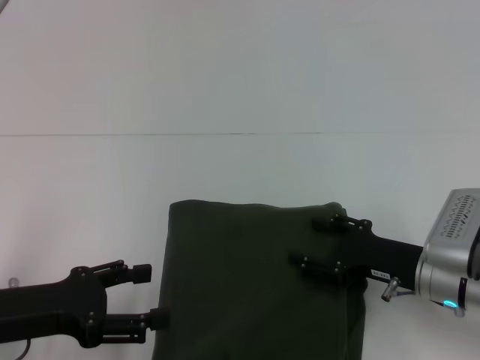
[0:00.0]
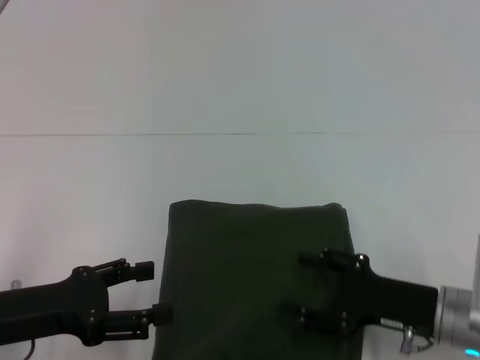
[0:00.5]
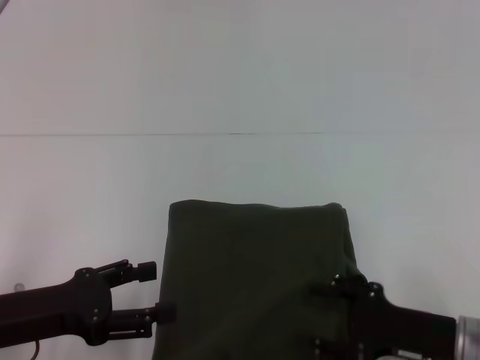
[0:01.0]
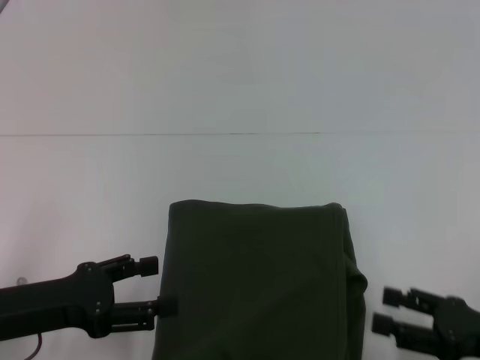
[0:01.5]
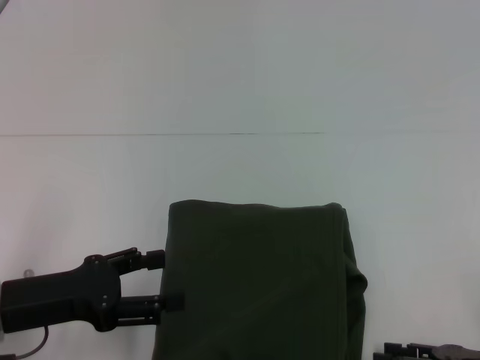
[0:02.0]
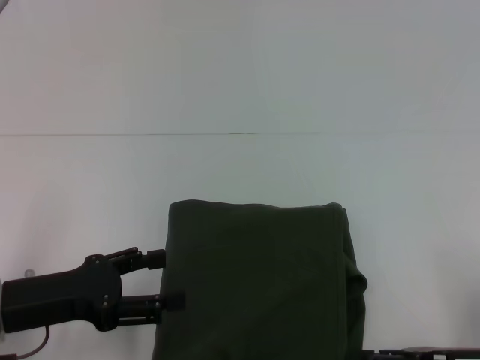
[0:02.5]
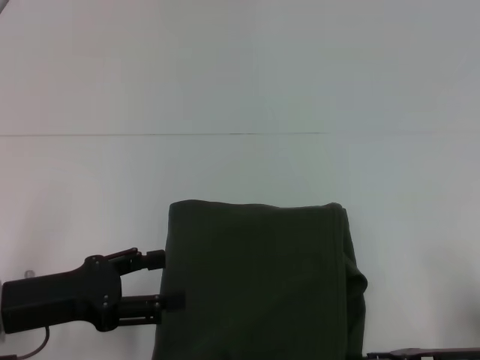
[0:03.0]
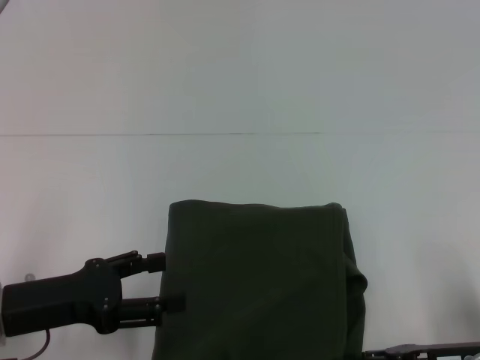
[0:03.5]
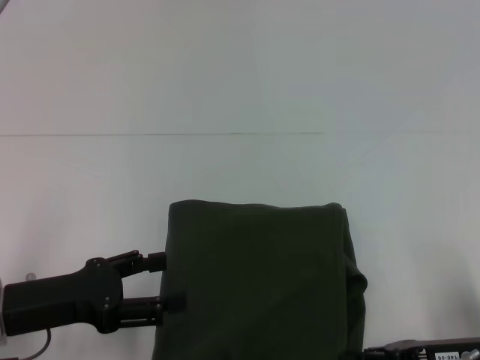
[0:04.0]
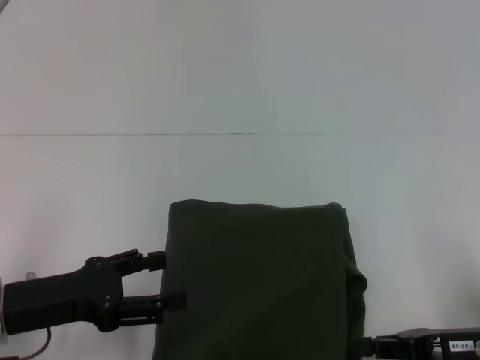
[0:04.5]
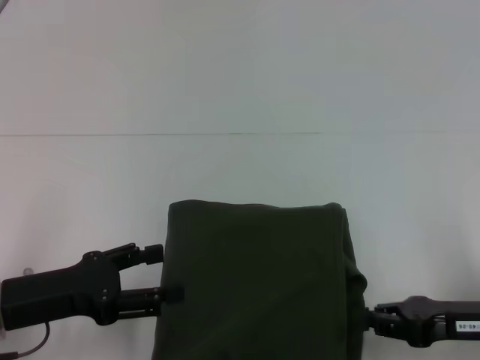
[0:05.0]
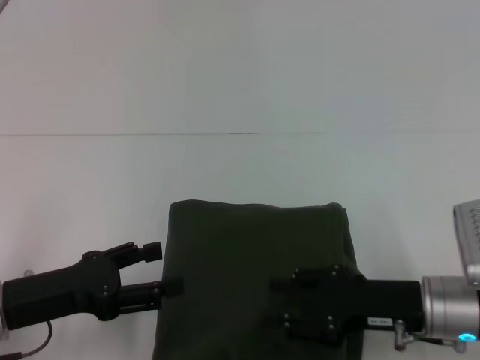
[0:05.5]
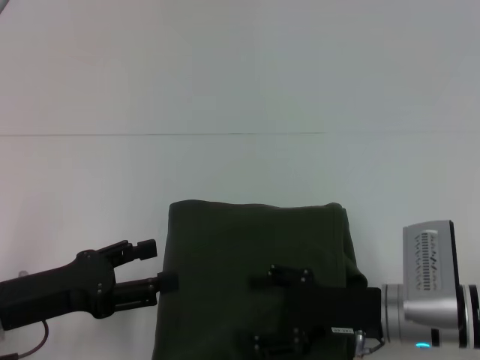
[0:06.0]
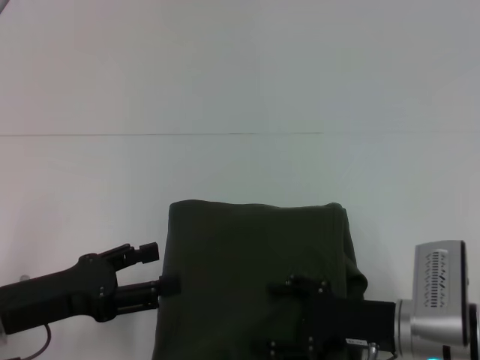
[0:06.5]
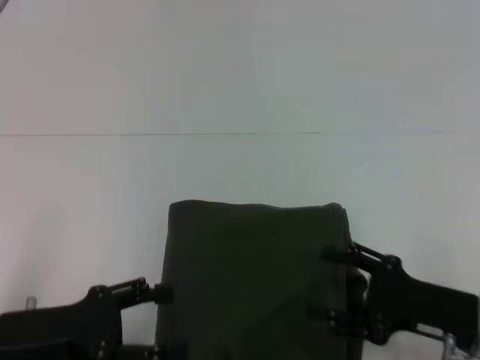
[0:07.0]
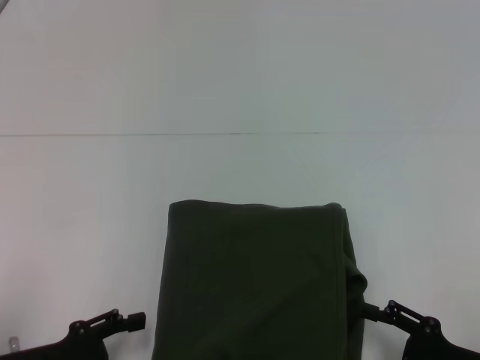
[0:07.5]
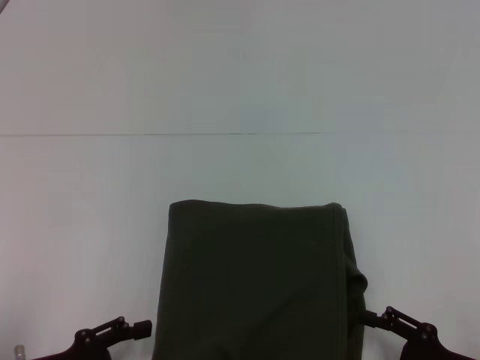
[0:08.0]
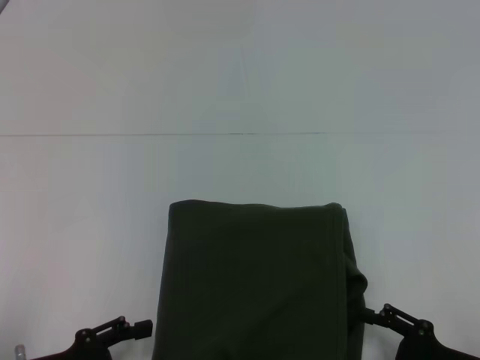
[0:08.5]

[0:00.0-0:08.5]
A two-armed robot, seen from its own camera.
0:00.0 to 0:02.0: The right gripper is displaced backward and to the right by approximately 15 cm.
0:02.0 to 0:04.0: The right gripper ends up approximately 5 cm from where it was, and closes.
0:04.0 to 0:06.5: The right gripper moves to the left, some 10 cm, and opens.
0:06.5 to 0:08.5: The left gripper goes some 5 cm backward; the right gripper travels to the right and backward by roughly 10 cm.

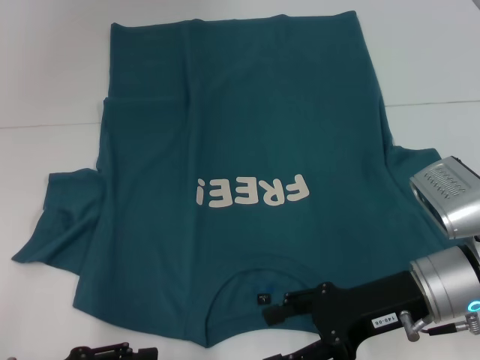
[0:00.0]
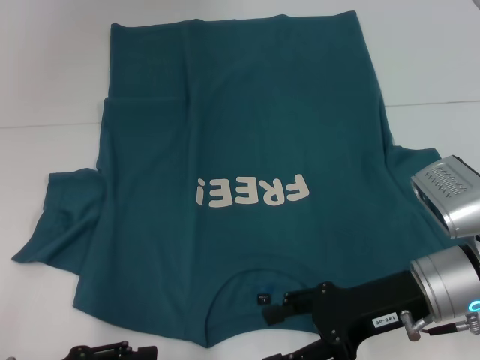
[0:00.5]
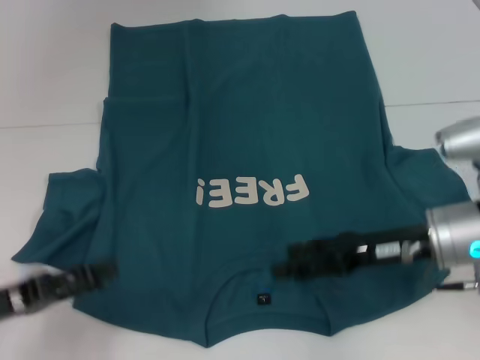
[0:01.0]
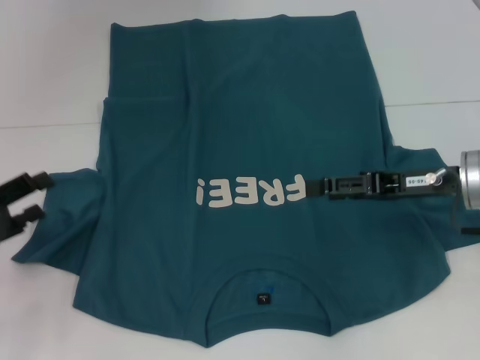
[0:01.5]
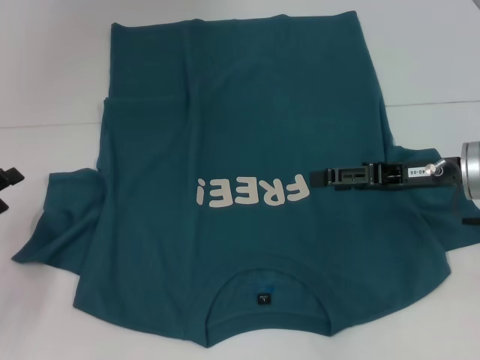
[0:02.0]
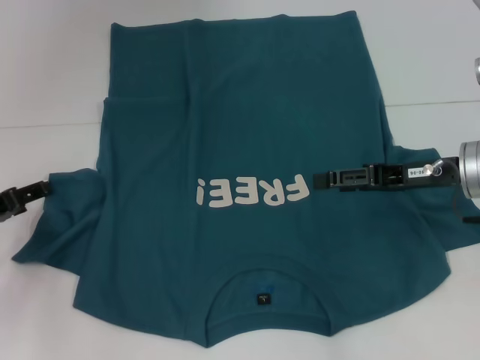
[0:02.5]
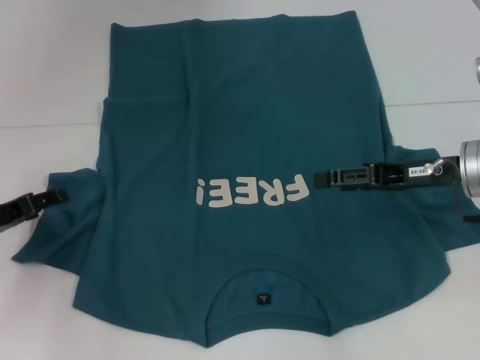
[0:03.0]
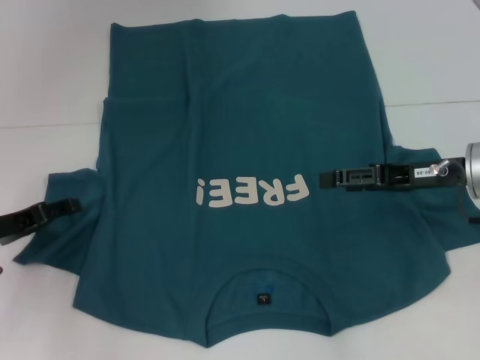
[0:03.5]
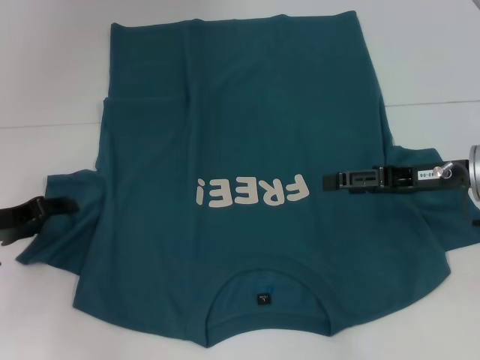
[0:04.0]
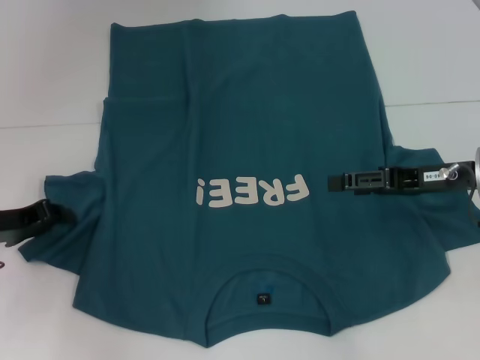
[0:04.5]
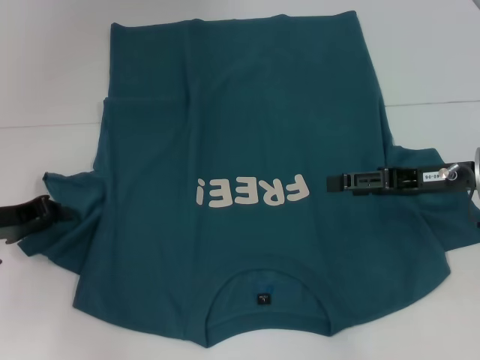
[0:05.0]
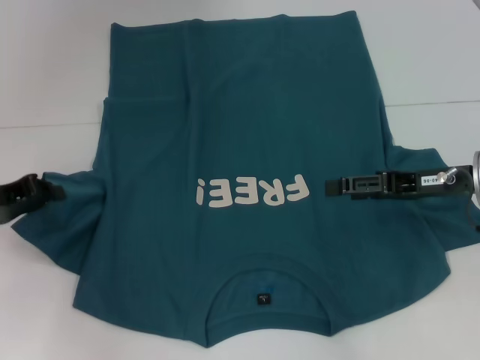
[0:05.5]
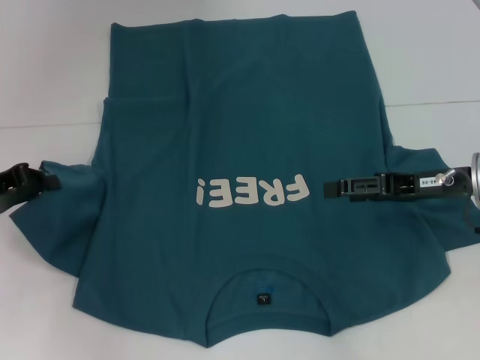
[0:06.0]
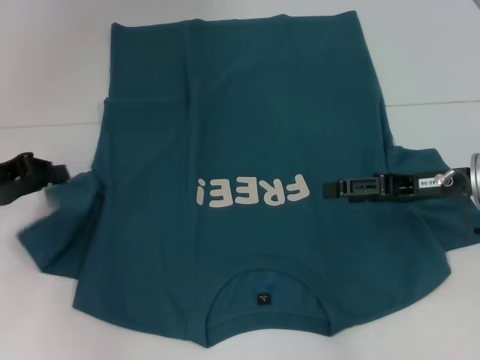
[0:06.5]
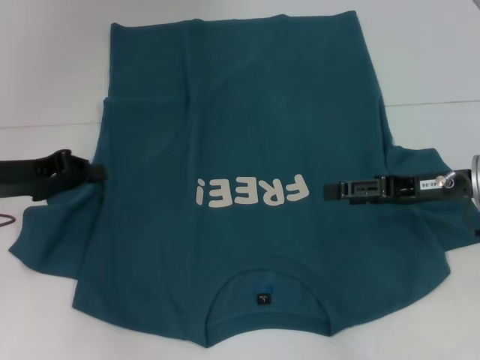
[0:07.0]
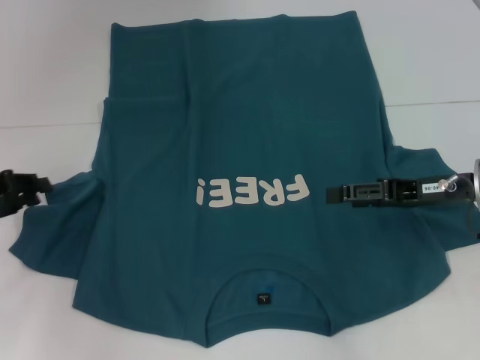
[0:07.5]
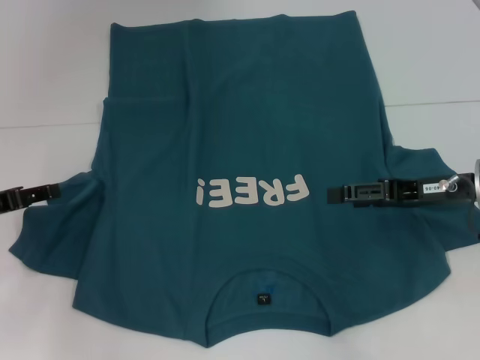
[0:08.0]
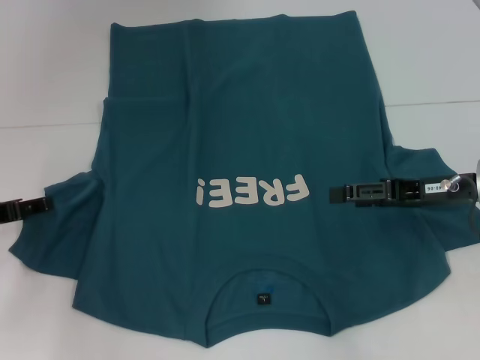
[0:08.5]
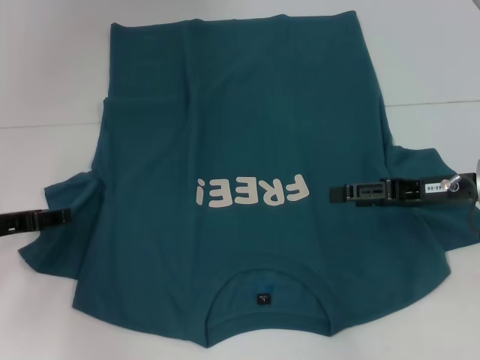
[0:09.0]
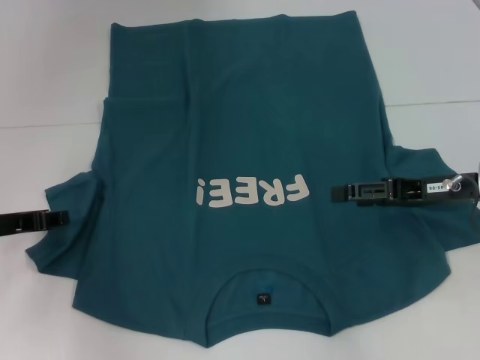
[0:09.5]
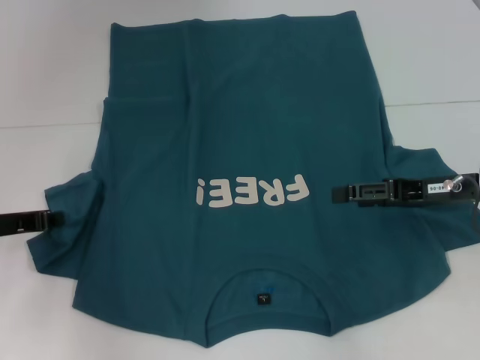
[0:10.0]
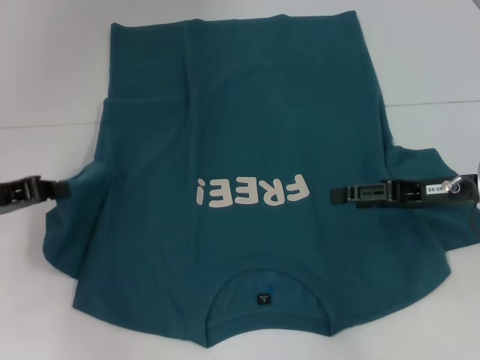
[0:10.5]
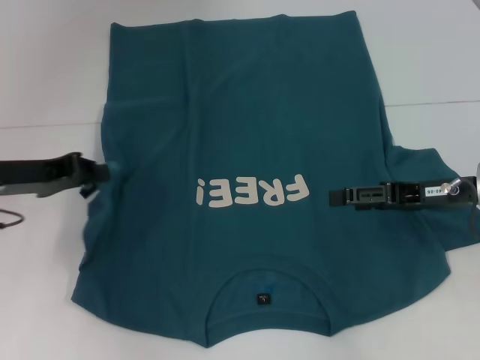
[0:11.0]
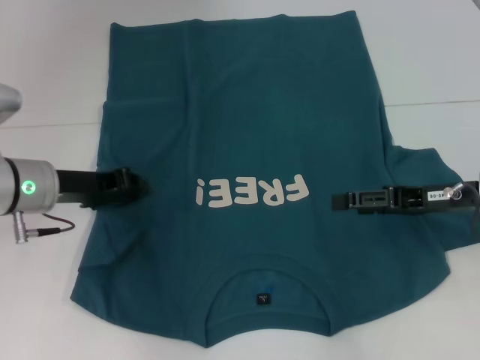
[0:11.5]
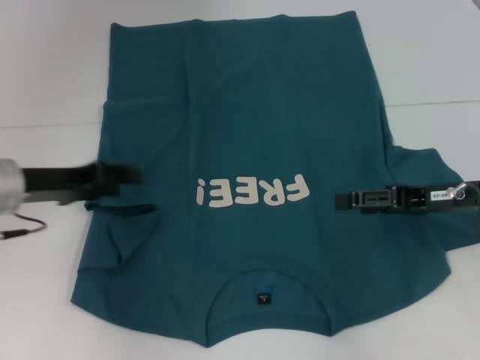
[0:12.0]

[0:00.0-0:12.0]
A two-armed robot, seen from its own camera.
0:00.0 to 0:02.0: The left gripper heads forward and to the left, covering roughly 15 cm, while the right gripper travels forward and to the right by some 10 cm.
0:02.0 to 0:04.0: The left gripper heads forward, covering some 5 cm.
0:04.0 to 0:06.0: The left gripper closes up.
0:06.0 to 0:08.0: The left gripper opens up.
0:08.0 to 0:10.0: The left gripper closes.
0:10.0 to 0:12.0: The left gripper goes roughly 5 cm to the right.

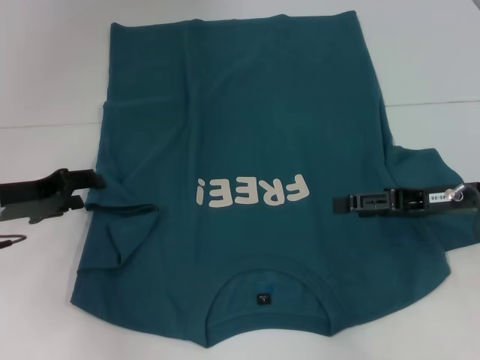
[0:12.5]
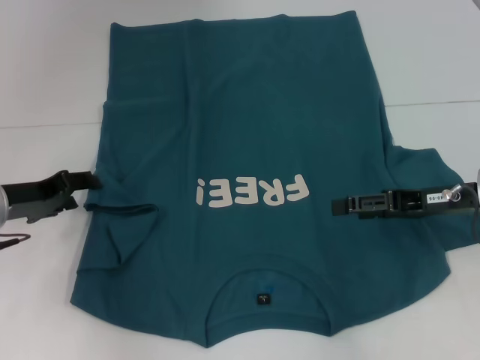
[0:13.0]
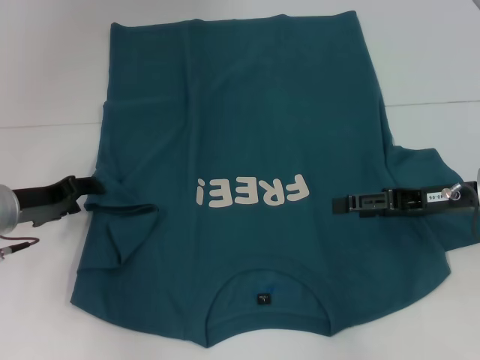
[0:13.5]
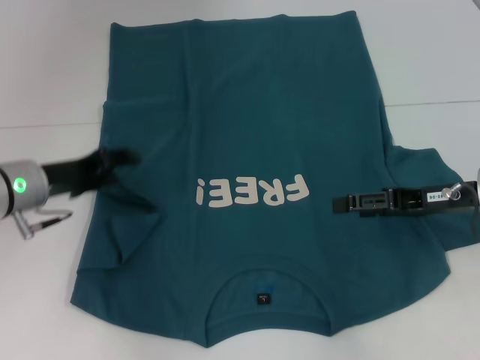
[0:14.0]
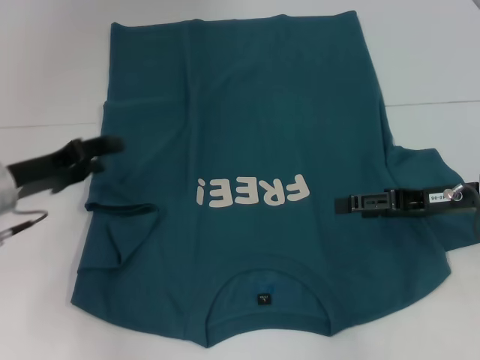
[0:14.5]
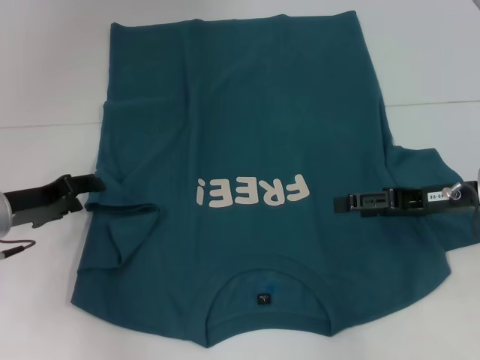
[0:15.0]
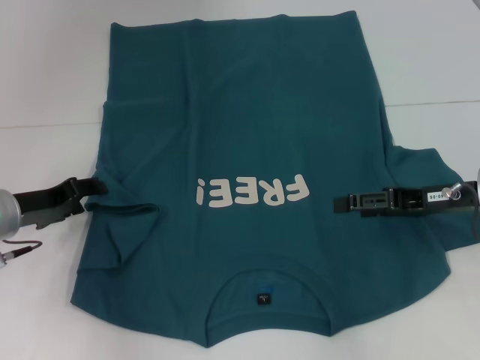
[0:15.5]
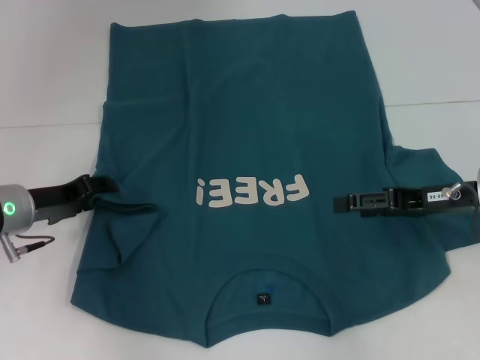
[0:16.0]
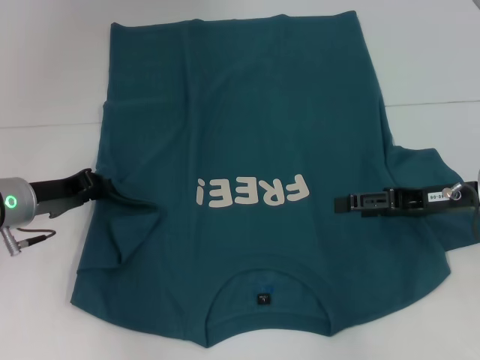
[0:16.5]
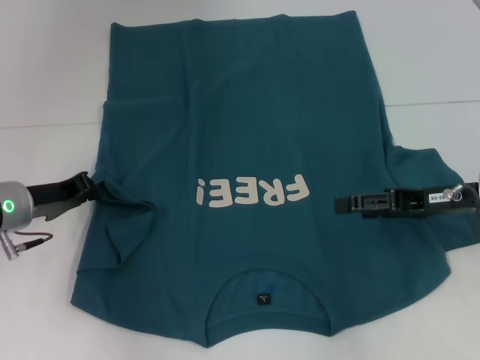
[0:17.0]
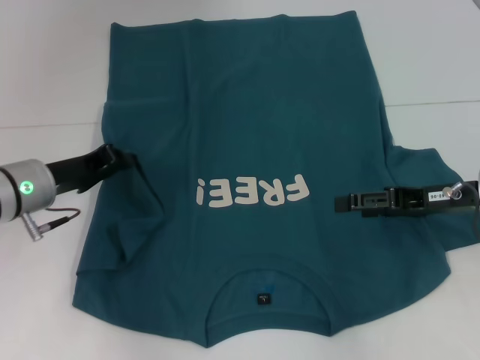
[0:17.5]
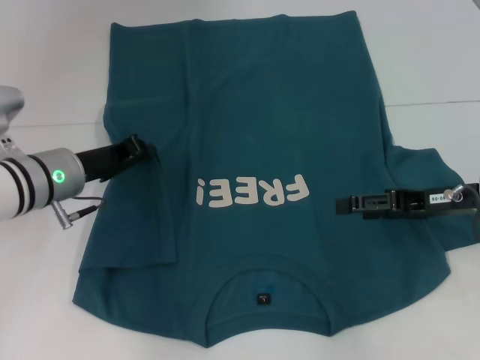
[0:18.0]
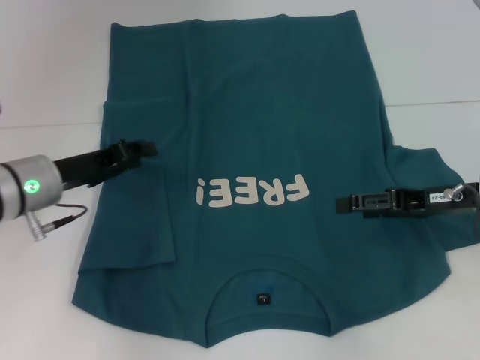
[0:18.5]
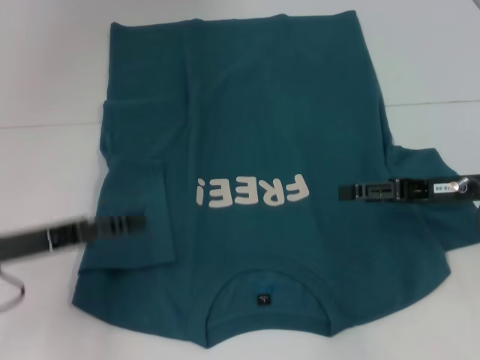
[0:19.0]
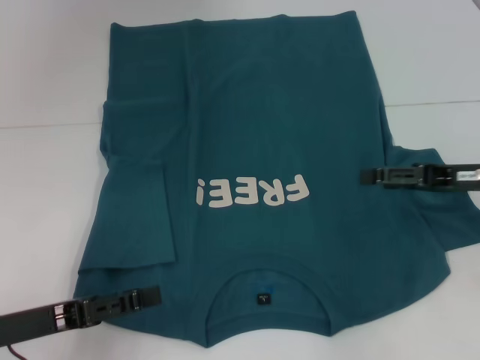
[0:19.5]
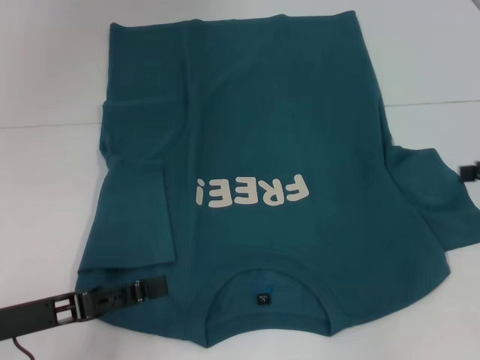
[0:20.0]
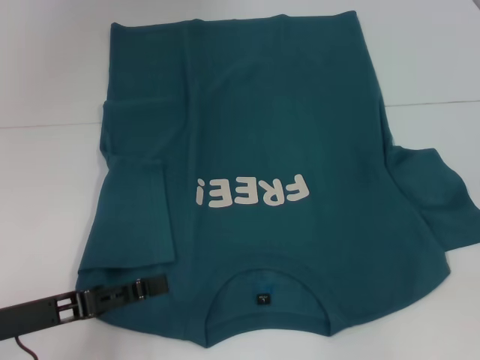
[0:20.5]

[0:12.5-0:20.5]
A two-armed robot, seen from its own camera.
Step, 0:12.5 to 0:18.0: Fold the bottom left sleeve with your left hand.
0:12.5 to 0:16.5: The grippers stay close to where they were, moving slightly.
0:16.5 to 0:18.5: The grippers make only small movements.
0:18.5 to 0:20.5: The left gripper is displaced backward by approximately 15 cm, and opens its fingers, while the right gripper travels to the right and upward by roughly 15 cm.
